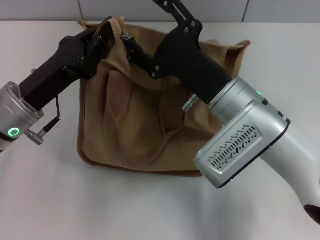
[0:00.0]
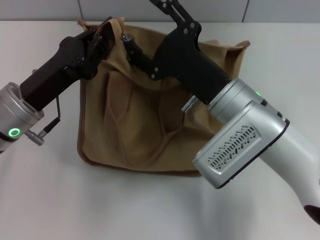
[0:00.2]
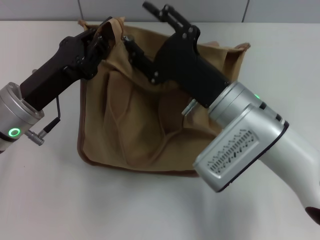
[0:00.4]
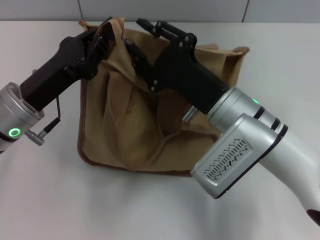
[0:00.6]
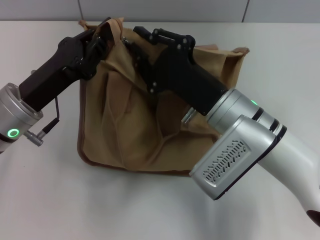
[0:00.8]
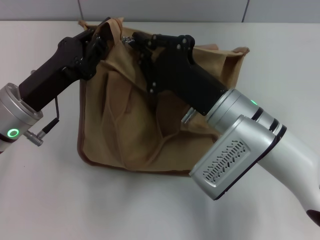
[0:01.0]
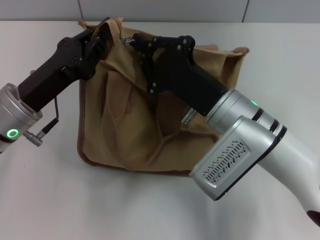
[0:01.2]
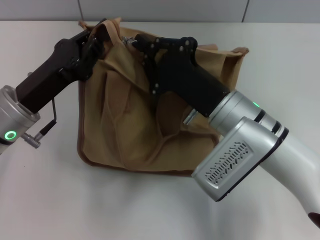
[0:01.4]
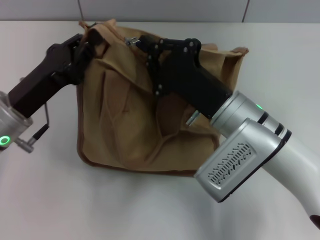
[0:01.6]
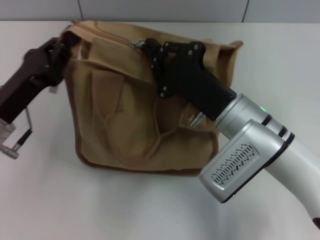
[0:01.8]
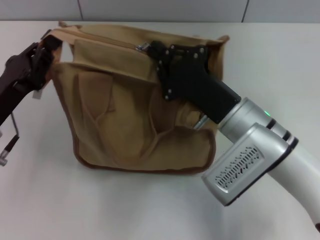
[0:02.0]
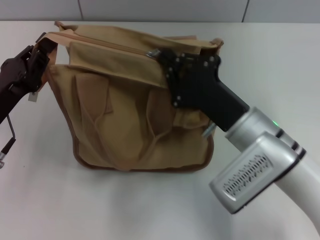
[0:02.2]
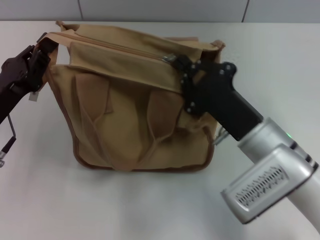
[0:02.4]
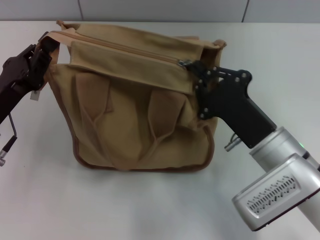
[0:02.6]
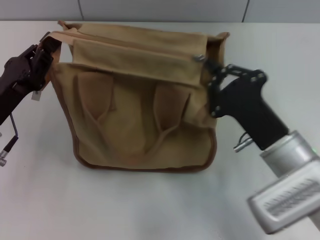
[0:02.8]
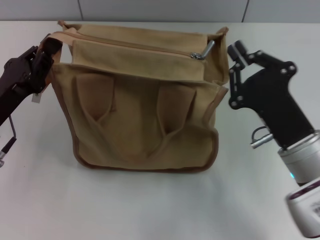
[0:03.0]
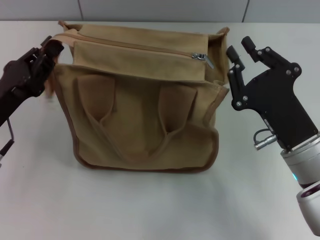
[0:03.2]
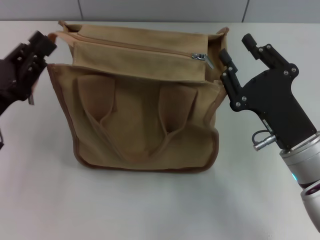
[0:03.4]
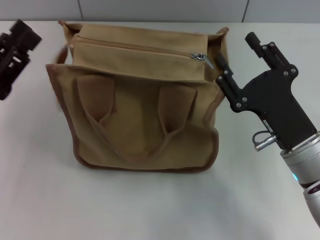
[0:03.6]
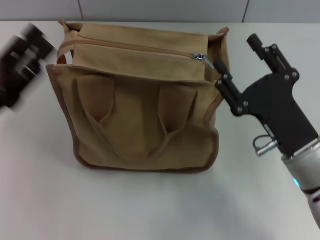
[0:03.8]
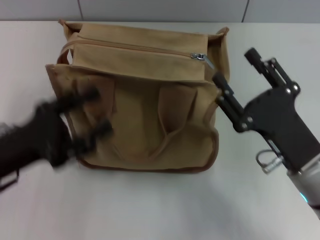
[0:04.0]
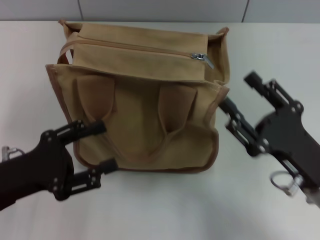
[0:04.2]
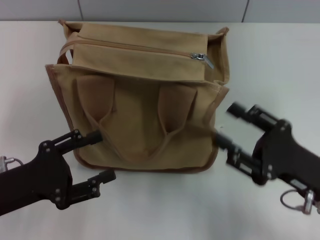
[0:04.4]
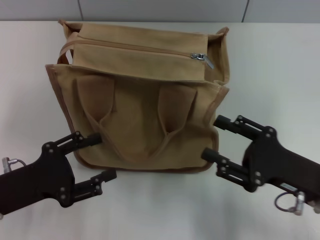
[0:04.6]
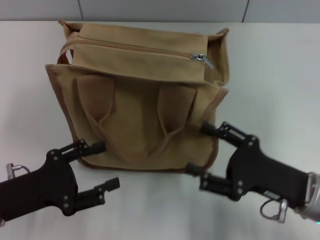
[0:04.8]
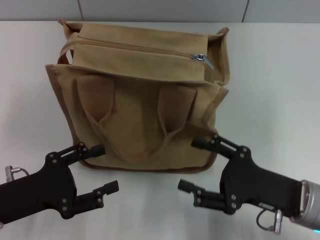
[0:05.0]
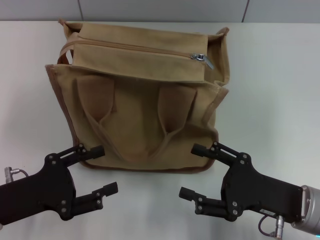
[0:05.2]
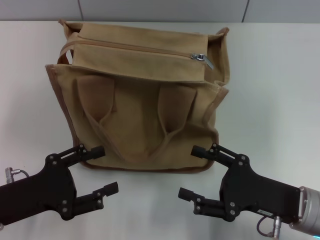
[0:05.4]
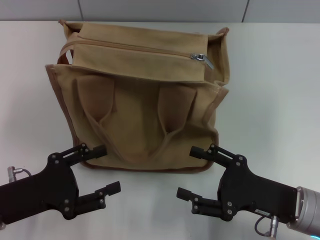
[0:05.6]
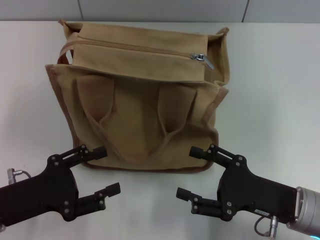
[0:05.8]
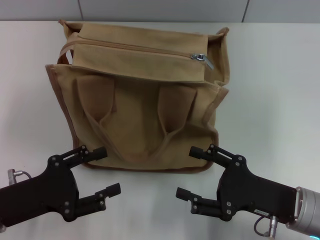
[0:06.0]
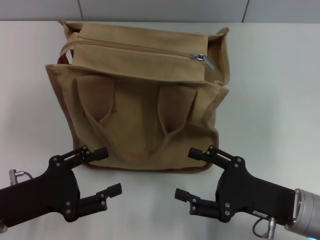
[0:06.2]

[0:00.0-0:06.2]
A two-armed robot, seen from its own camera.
Step, 0:00.0 to 0:03.2: Pull up the zipper with your right hand.
Step, 0:03.4 to 0:03.8: Grab the zipper with your left hand.
0:00.0 to 0:01.6: The right gripper closes.
0:01.6 to 0:03.2: The right gripper is displaced to the right and backward by some 10 cm. Meanwhile the left gripper moves some 5 cm.
0:03.2 to 0:04.6: The left gripper goes roughly 5 cm backward, and opens up, while the right gripper goes roughly 5 cm to the right, and opens up.
0:04.6 to 0:06.2: The grippers move only a little.
